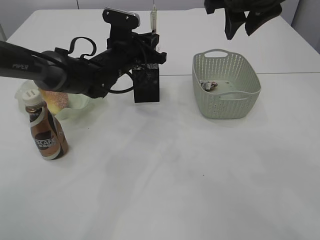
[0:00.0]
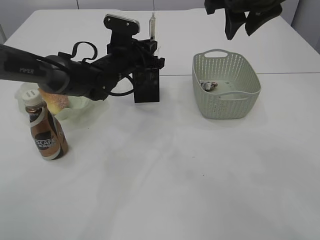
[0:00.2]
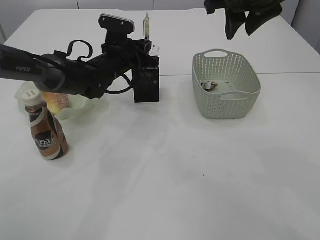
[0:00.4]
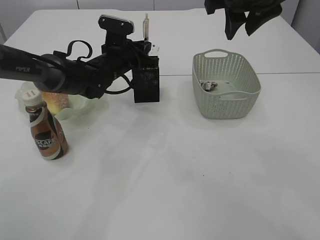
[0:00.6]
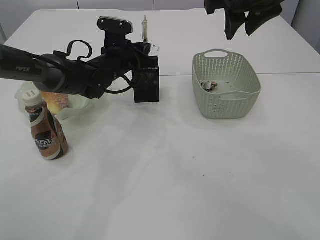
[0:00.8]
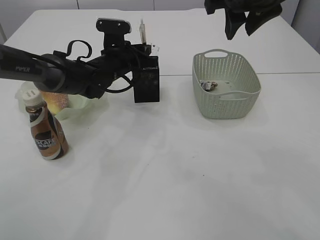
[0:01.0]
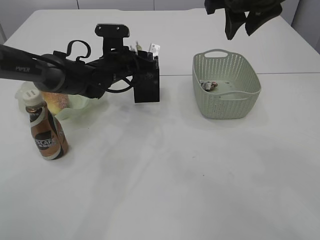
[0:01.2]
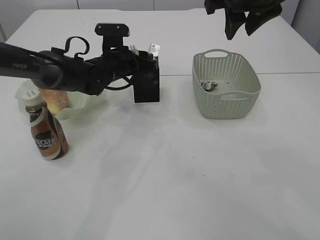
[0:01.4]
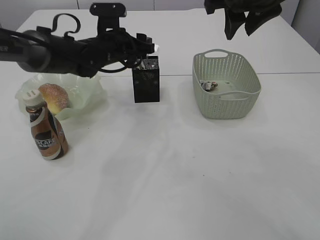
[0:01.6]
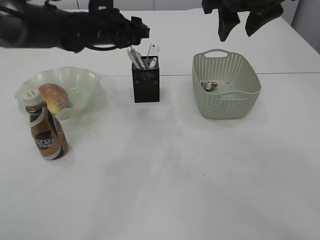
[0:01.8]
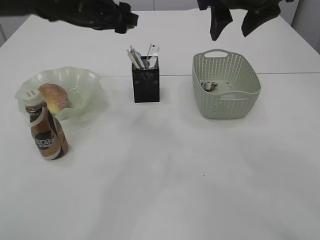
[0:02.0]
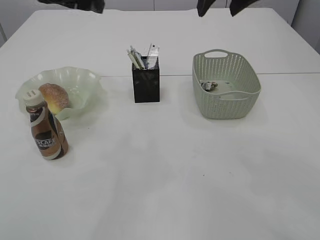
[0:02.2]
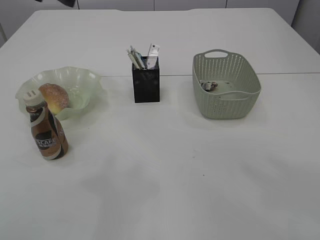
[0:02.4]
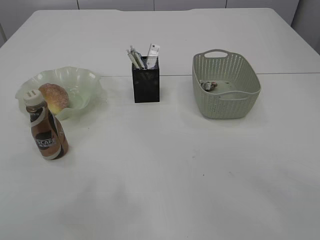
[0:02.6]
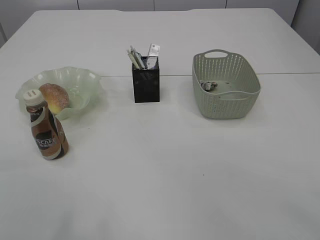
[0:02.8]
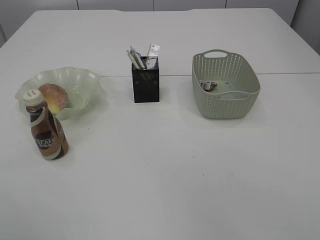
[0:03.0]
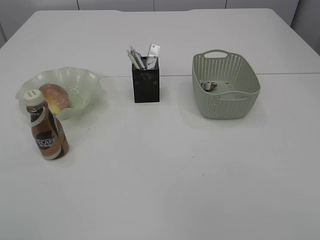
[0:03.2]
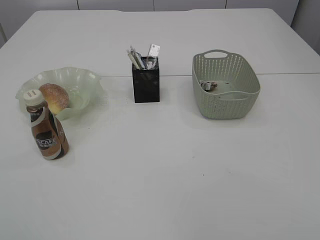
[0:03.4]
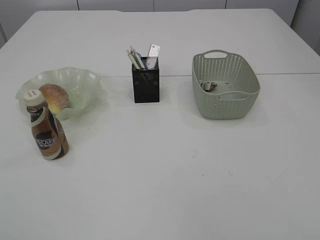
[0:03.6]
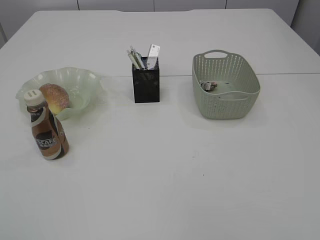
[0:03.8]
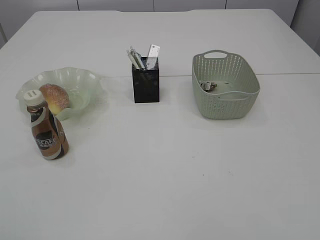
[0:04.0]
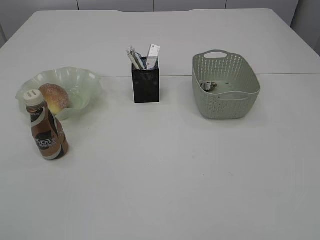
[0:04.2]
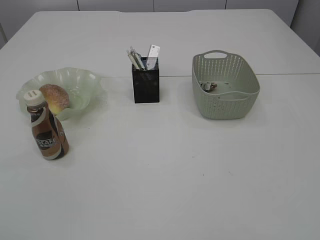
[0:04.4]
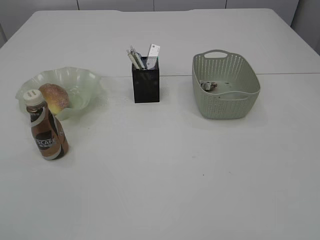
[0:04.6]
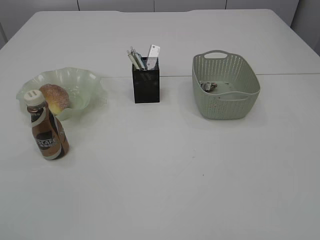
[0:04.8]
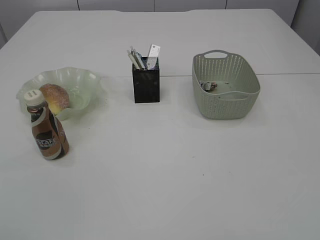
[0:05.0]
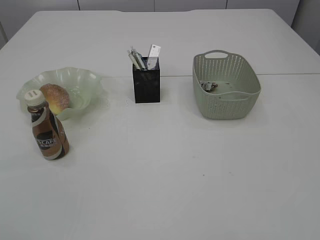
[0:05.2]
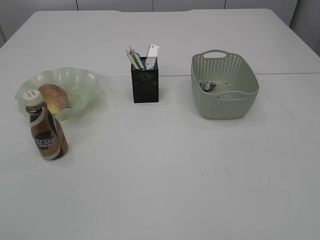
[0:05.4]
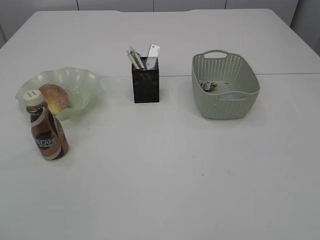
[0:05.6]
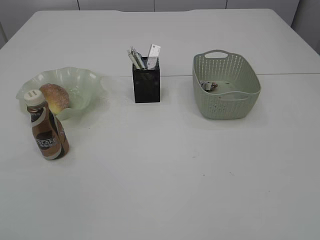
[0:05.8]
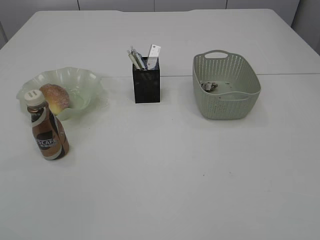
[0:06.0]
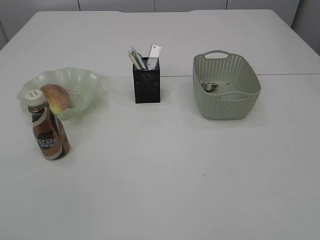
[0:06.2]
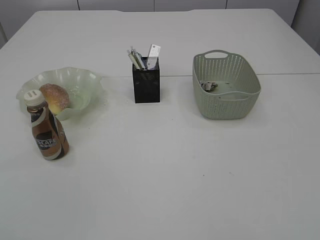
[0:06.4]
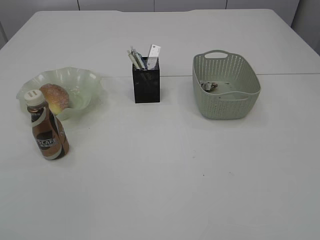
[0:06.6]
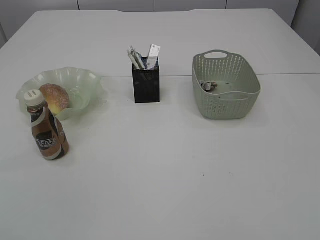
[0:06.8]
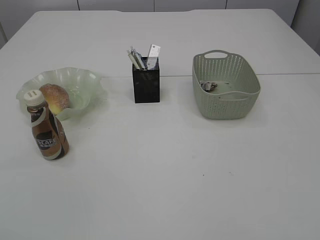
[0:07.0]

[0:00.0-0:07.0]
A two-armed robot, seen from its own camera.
Step, 0:00.0 to 0:02.0: Place the pen into the pen holder.
0:00.0 to 0:01.4: The left gripper opens.
0:01.4 to 0:02.8: The left gripper heads upward, backward and to the left, covering about 40 cm, while the right gripper moves upward and backward, roughly 15 cm, and opens up.
